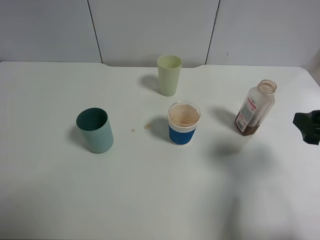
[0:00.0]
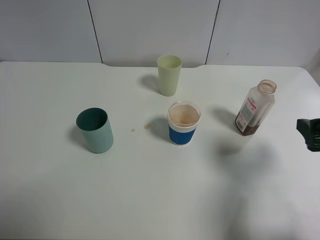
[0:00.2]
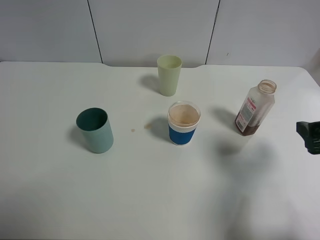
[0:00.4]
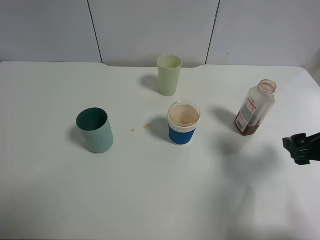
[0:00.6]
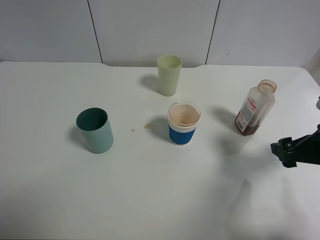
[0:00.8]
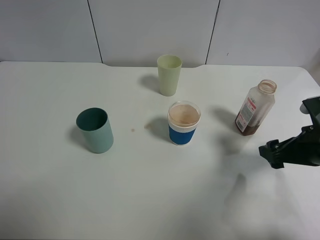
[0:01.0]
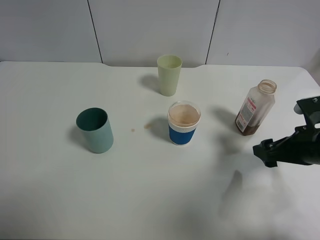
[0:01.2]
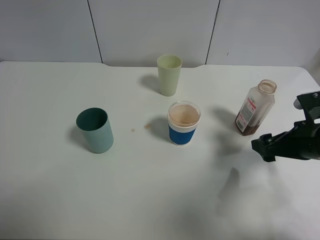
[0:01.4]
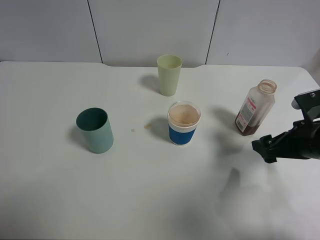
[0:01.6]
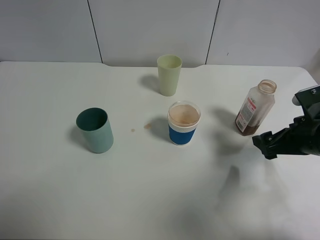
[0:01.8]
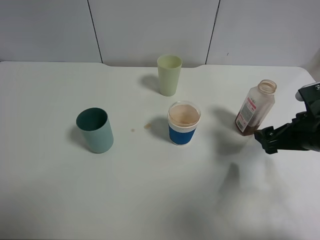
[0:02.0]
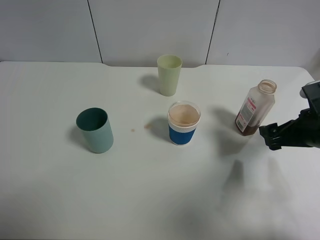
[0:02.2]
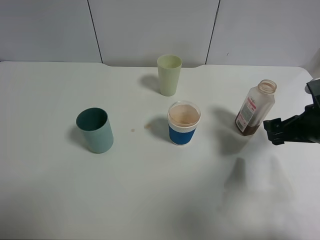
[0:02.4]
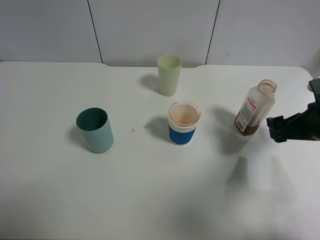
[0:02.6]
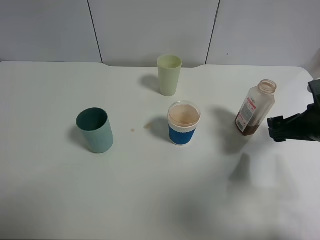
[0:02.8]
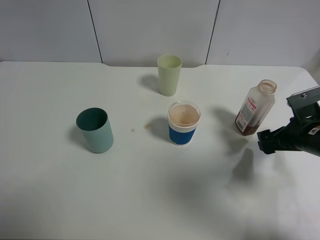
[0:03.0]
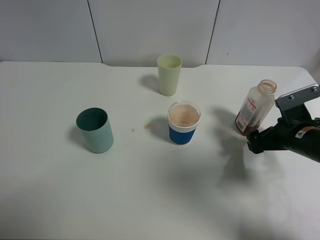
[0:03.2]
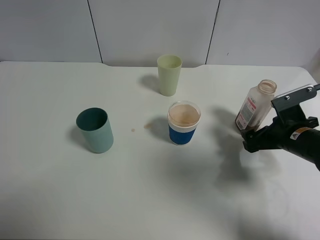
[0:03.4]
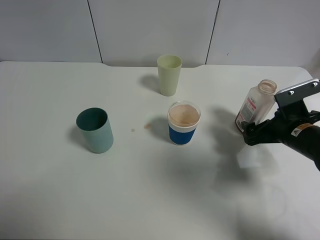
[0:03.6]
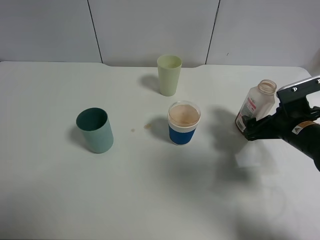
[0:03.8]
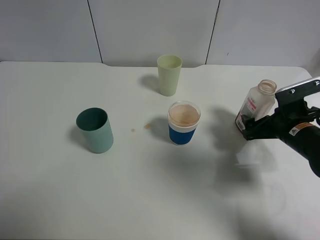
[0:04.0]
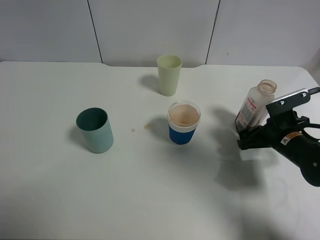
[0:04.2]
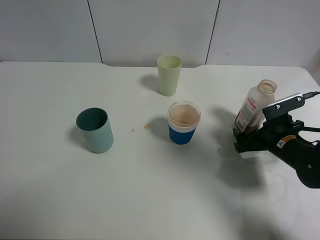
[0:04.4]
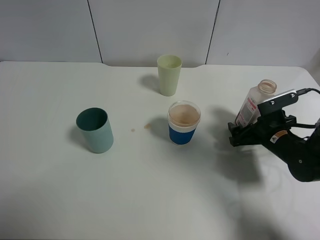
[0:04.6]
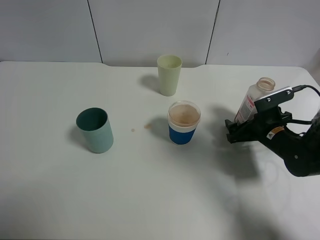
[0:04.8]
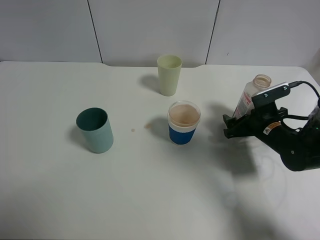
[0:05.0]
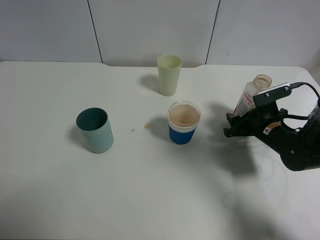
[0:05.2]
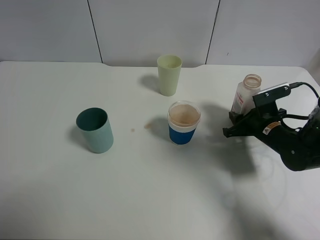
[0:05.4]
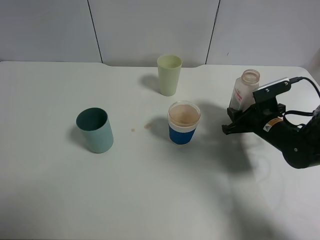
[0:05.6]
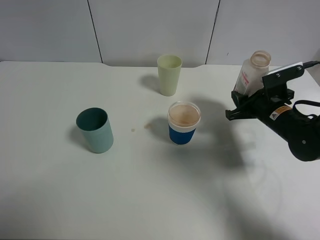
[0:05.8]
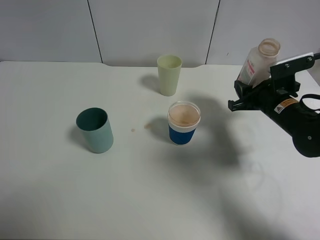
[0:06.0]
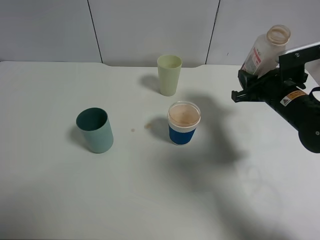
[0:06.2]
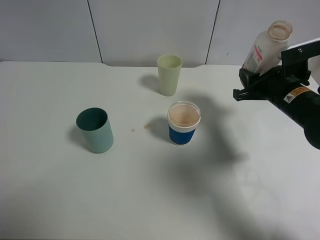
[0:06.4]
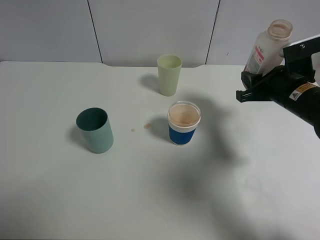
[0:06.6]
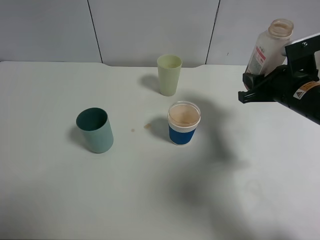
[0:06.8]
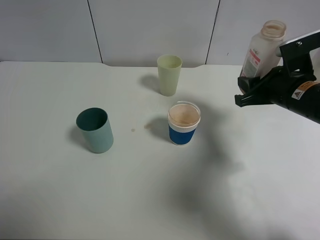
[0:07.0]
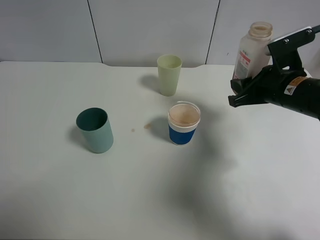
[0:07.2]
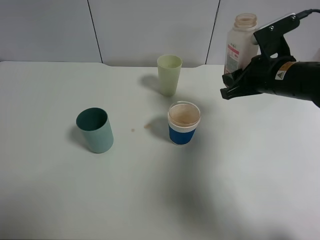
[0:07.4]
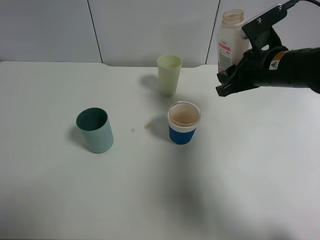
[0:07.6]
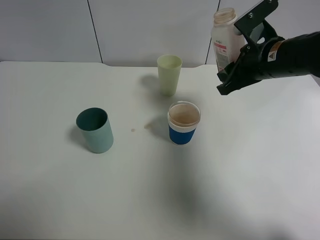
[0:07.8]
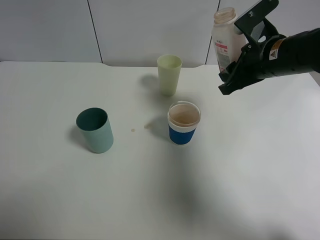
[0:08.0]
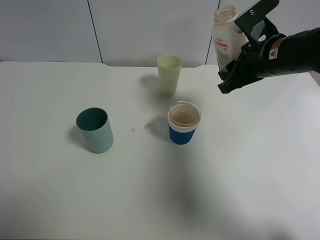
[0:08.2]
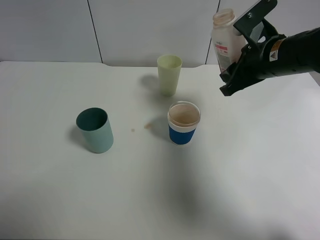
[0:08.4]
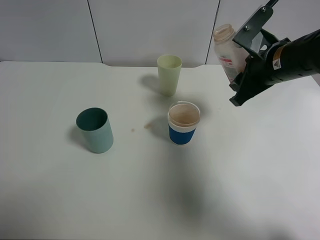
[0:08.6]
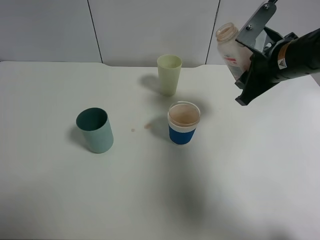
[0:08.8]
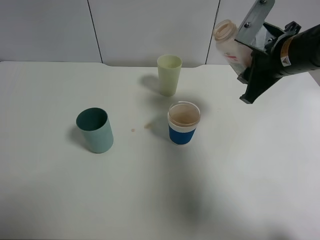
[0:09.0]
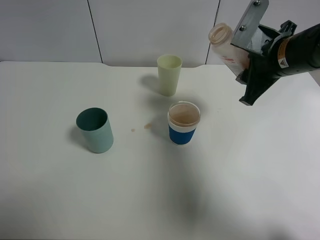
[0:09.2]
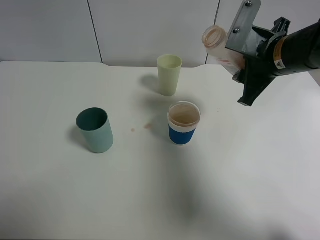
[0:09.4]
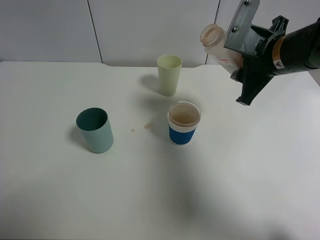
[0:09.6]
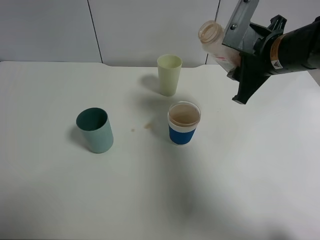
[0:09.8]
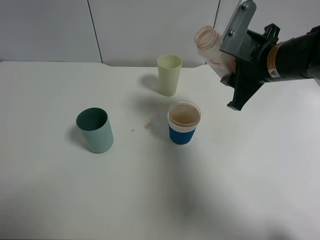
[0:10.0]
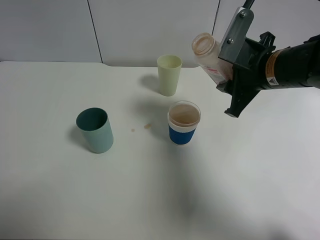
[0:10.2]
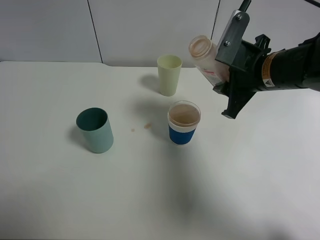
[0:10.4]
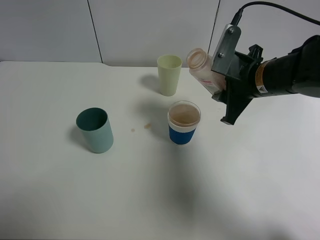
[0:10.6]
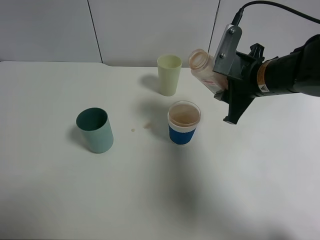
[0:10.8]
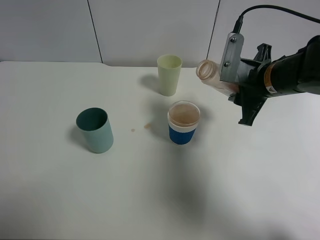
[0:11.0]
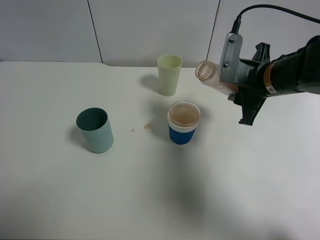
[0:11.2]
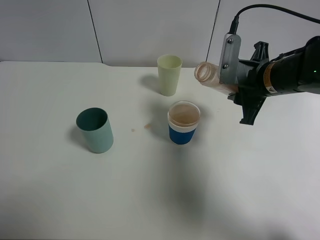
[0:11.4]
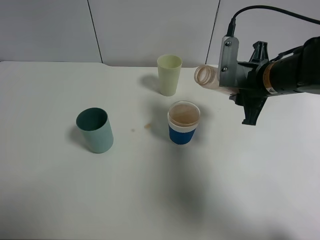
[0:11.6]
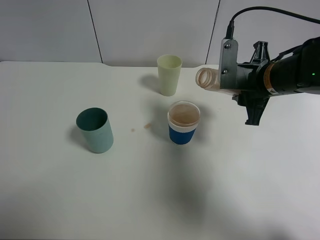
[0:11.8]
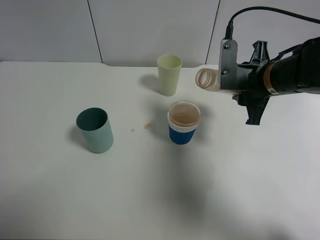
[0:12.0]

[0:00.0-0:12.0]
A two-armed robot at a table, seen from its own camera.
Task of the whole recording: use a clamp to hold the bottle of the drink, pour the beverage into a random cup, then clamp the cup containing the drink and pour the drink into another random cup.
Step, 0:00.0 to 0:05.6: Pick up the drink bottle with right gripper.
0:00.0 to 0:01.6: The right gripper travels downward and forward by approximately 10 cm.
0:01.6 to 0:03.0: There are only small adjustments of the grippers.
0:03.0 to 0:04.4: The right gripper shifts some 5 cm downward.
0:04.4 to 0:06.0: The right gripper shifts roughly 5 cm upward, and closes its fingers.
0:06.0 to 0:07.6: The right gripper is displaced upward and to the left by about 10 cm.
0:09.0 to 0:10.4: The grippers make only small movements.

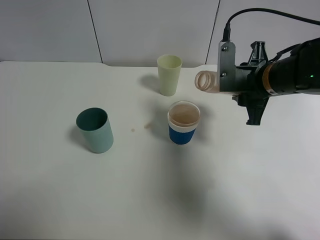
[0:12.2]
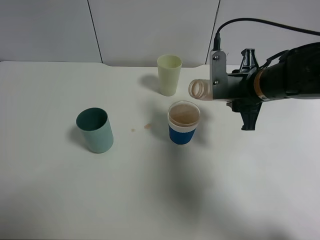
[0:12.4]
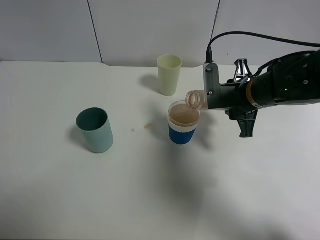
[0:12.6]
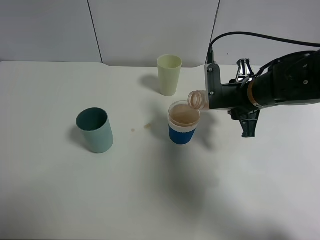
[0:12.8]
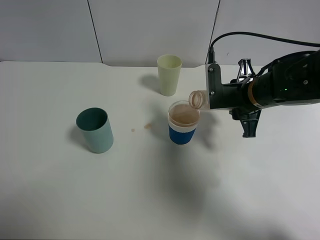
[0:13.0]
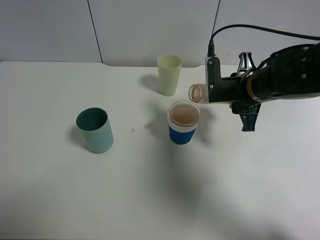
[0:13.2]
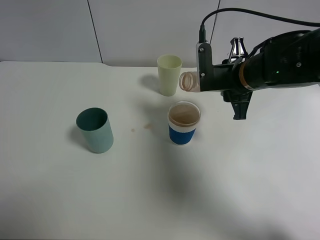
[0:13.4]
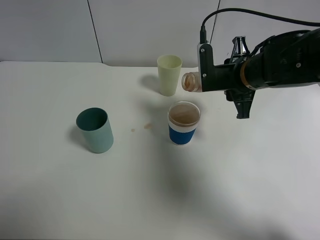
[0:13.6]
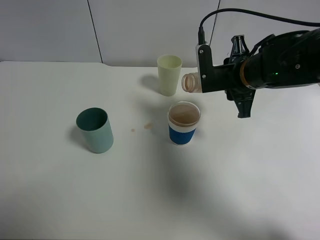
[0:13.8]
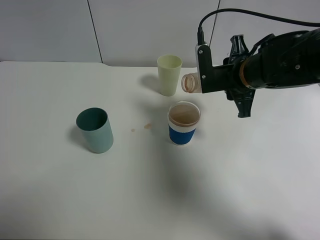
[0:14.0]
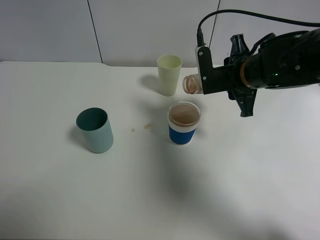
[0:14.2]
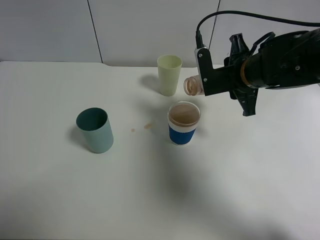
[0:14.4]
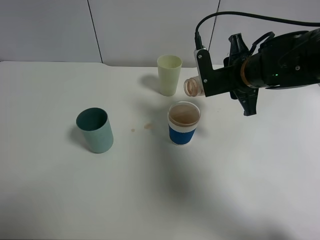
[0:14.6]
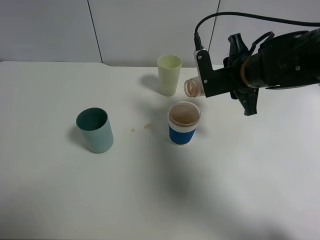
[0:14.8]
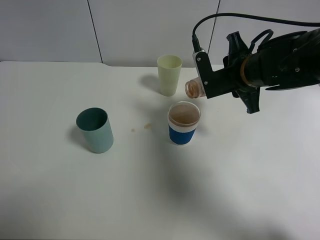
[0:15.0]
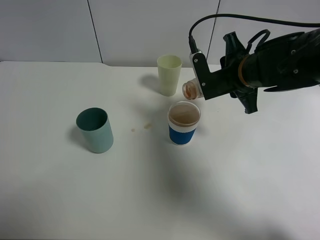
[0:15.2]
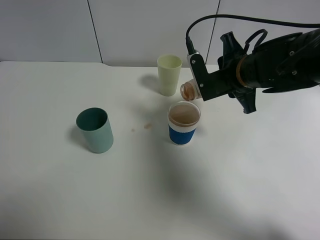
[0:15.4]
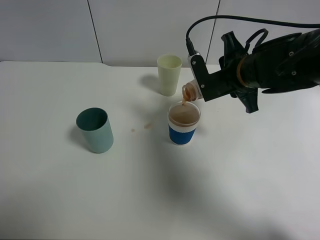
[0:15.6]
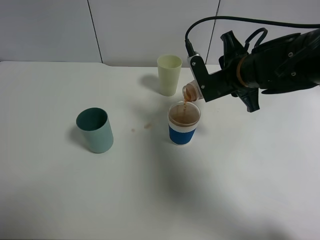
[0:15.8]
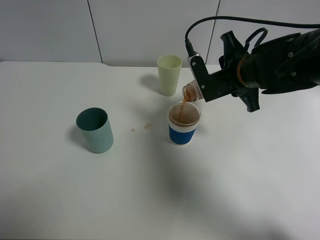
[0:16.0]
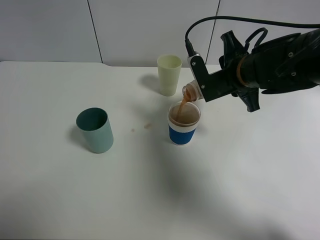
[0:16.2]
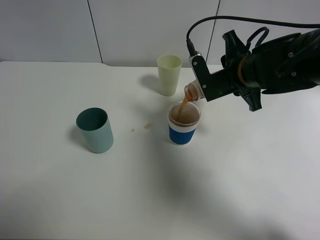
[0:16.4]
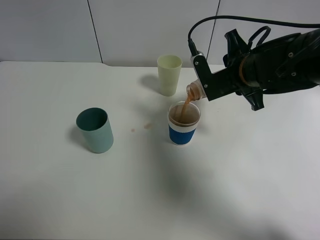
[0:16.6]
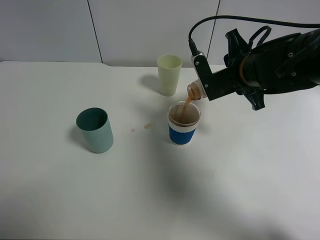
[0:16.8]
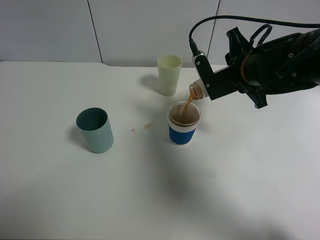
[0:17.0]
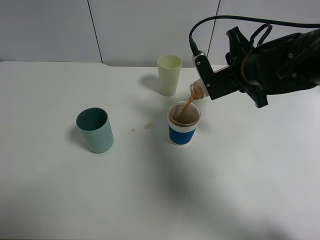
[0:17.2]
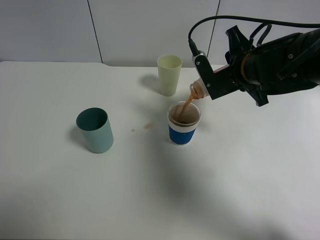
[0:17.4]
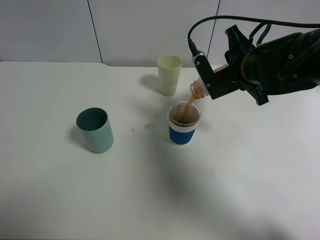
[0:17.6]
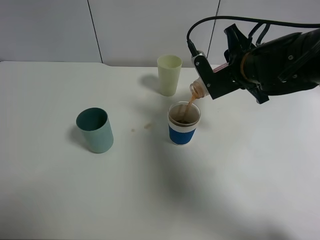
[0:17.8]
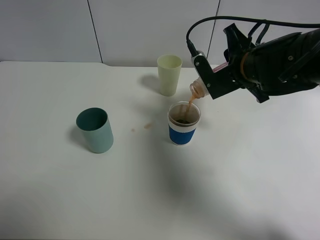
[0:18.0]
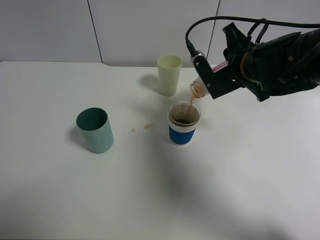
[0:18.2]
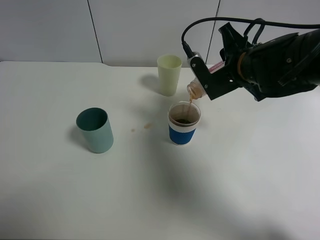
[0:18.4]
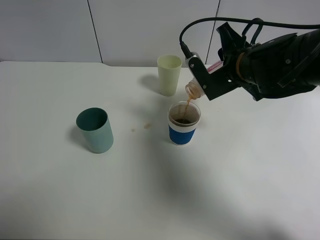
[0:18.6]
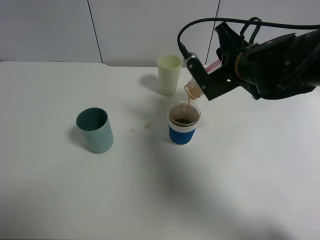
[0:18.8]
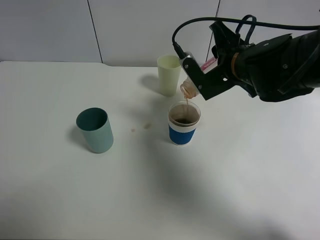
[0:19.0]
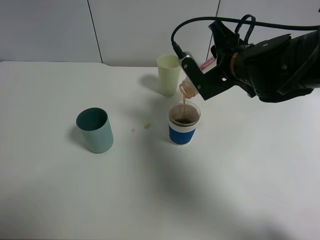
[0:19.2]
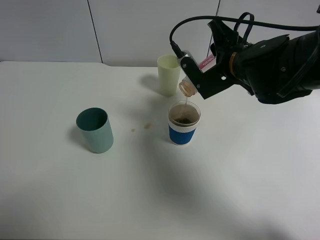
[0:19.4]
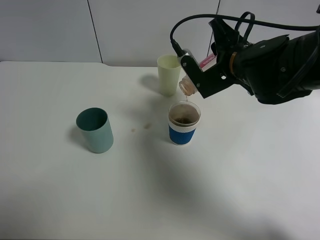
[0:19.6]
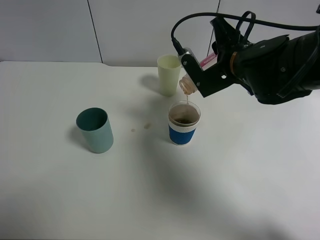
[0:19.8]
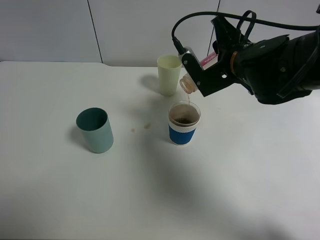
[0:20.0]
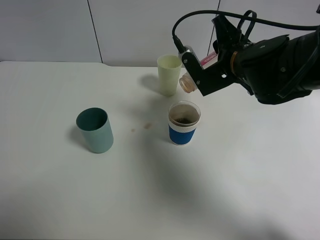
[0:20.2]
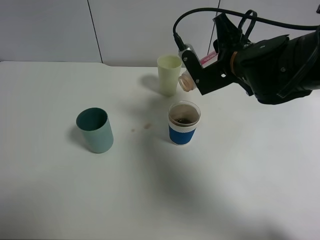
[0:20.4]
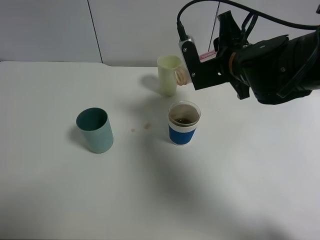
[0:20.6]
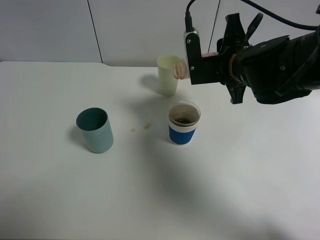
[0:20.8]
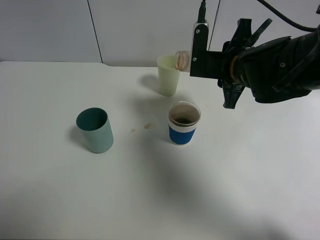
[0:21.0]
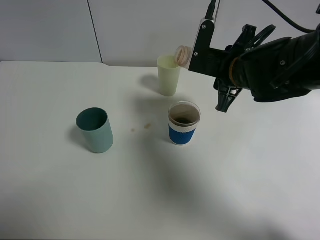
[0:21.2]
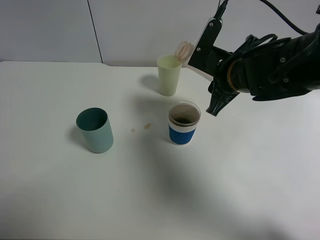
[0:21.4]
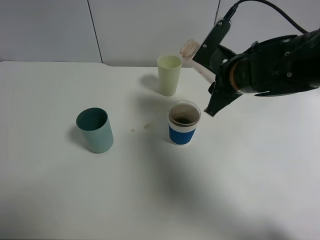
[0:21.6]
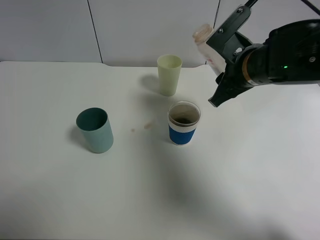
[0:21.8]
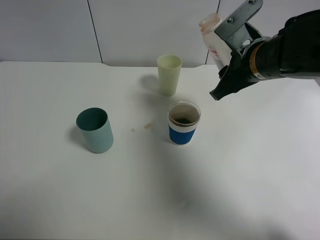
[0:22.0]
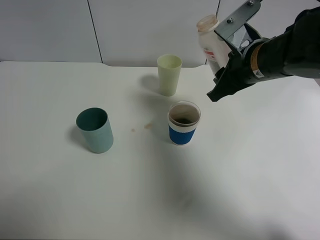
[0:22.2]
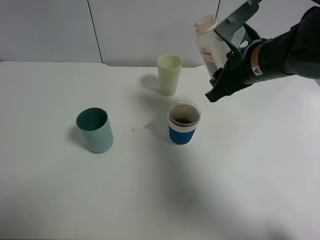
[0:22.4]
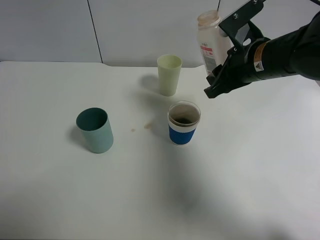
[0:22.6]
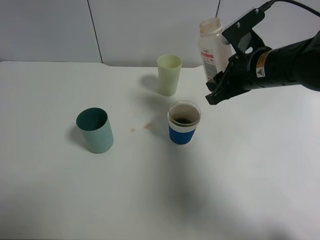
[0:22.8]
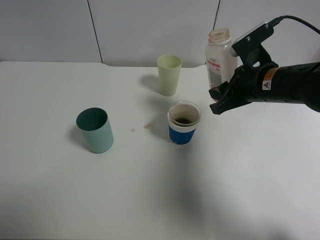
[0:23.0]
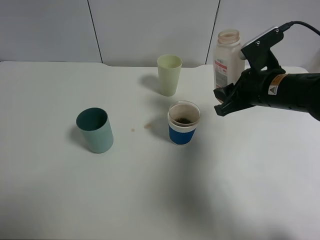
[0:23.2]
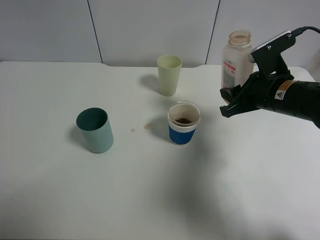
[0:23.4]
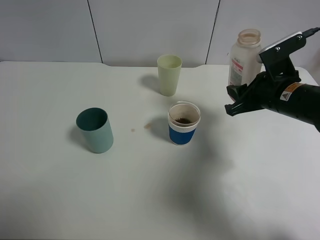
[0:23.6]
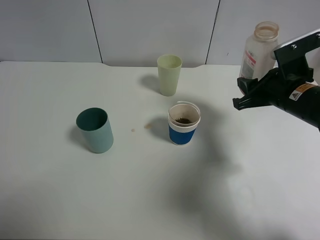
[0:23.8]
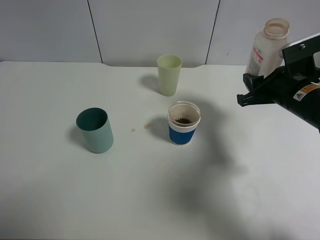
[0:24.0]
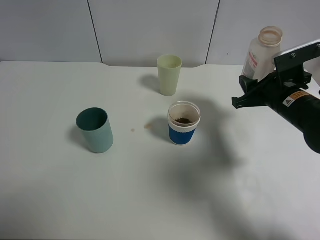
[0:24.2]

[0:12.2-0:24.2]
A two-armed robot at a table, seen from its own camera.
Task of the whole recording: use a clamp to hold the bottle of the drink, pour the beverage into a random cup, then clamp the cup containing the drink and pour the drink into another random cup.
Step, 0:12.2 to 0:20.8: Pour the drink into the paper cup with right gripper.
0:12.2 to 0:13.8: The grippers stay close to where they were, moving slightly.
0:13.8 to 0:16.6: The grippers make only small movements.
0:16.6 to 0:19.8: The grippers move only a little.
0:22.6 to 0:24.2: The right gripper heads to the right and downward, covering about 10 cm.
